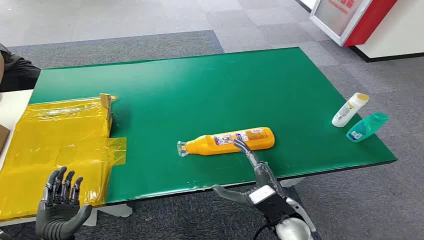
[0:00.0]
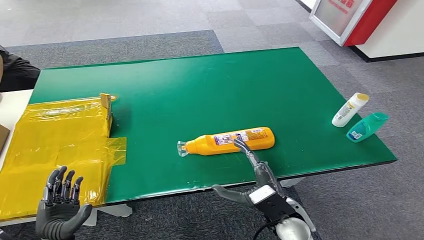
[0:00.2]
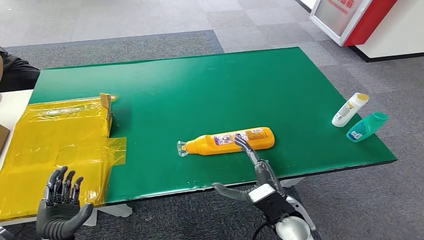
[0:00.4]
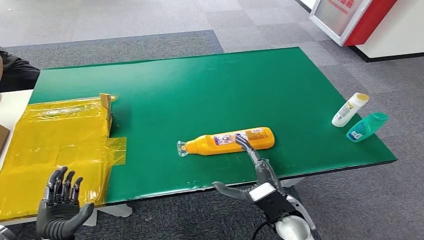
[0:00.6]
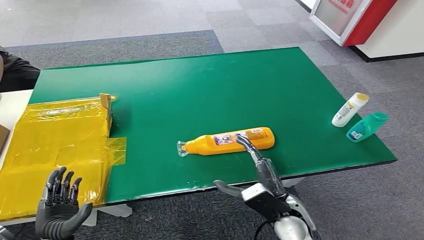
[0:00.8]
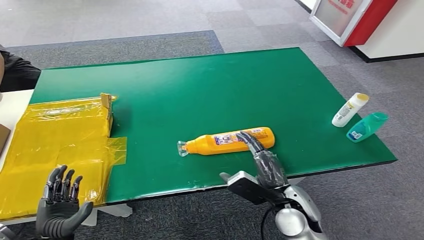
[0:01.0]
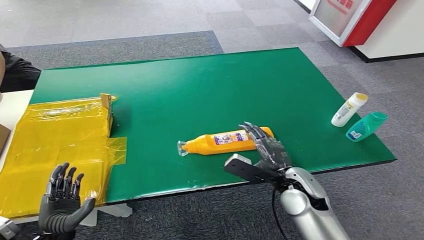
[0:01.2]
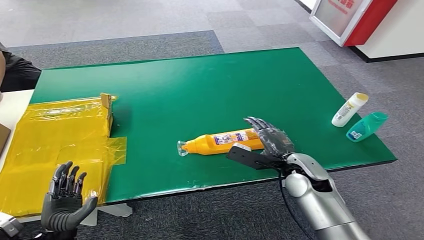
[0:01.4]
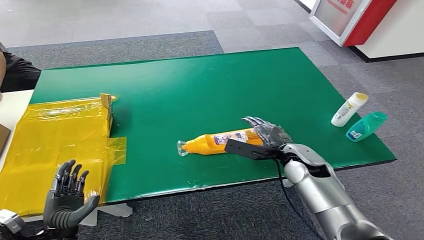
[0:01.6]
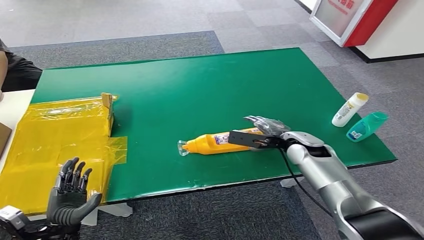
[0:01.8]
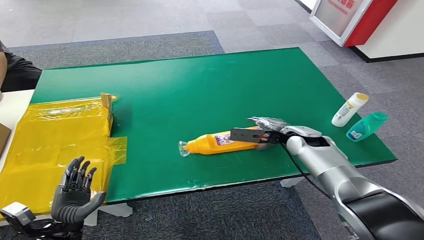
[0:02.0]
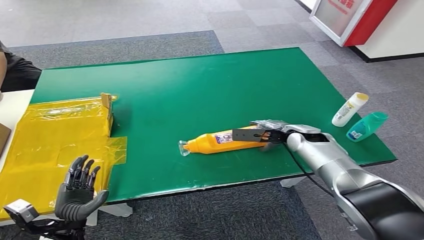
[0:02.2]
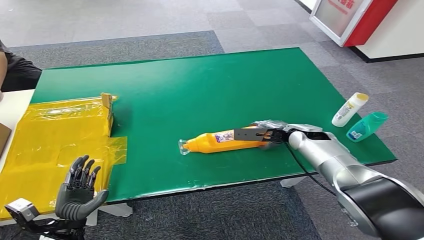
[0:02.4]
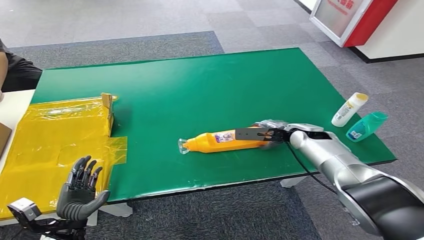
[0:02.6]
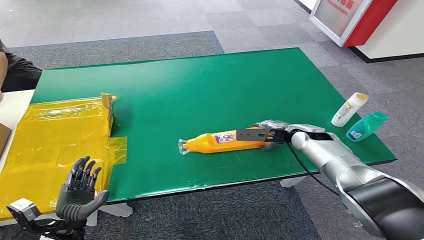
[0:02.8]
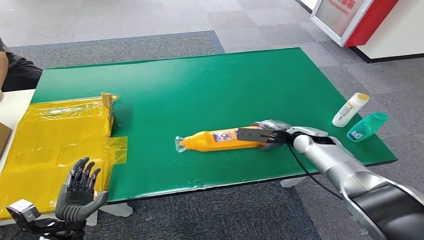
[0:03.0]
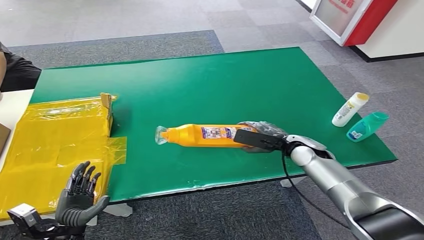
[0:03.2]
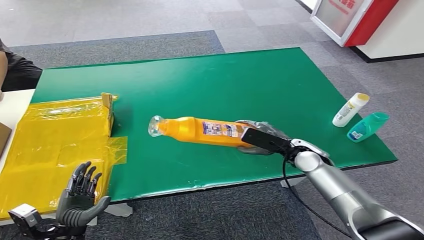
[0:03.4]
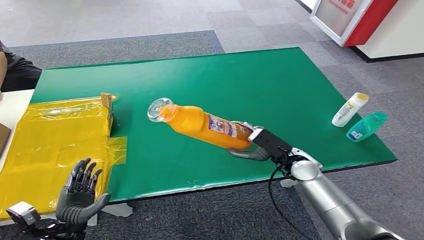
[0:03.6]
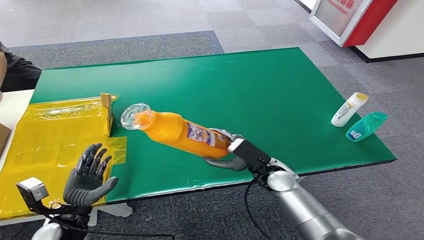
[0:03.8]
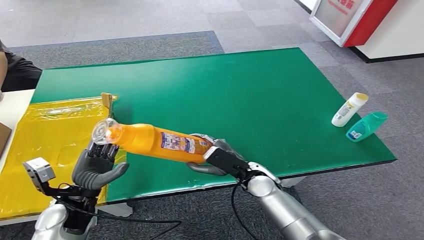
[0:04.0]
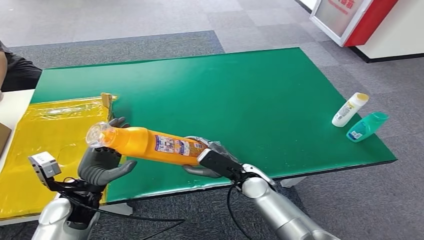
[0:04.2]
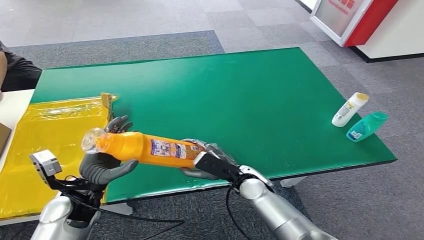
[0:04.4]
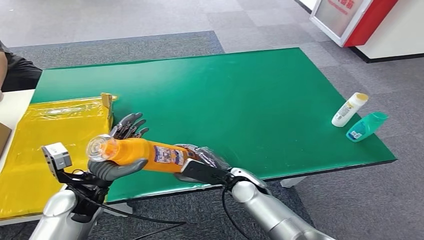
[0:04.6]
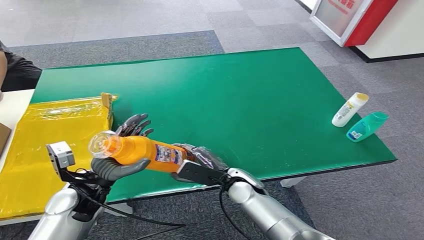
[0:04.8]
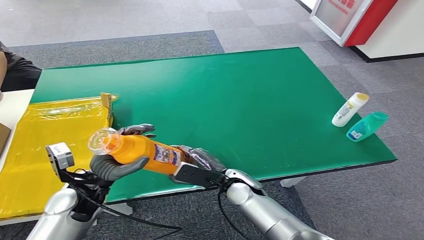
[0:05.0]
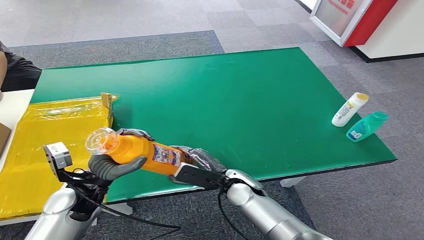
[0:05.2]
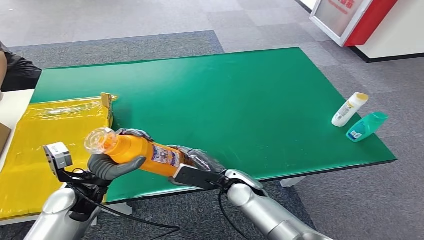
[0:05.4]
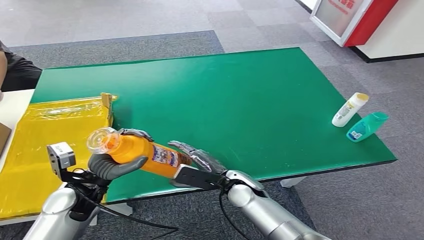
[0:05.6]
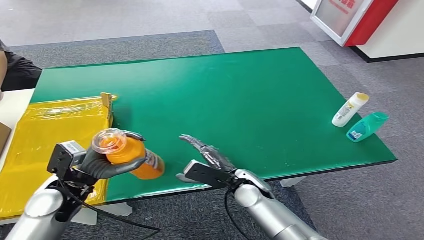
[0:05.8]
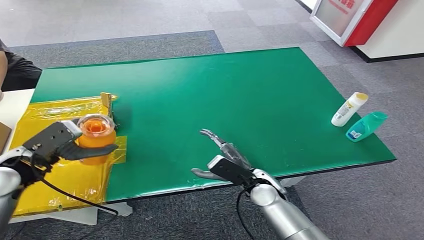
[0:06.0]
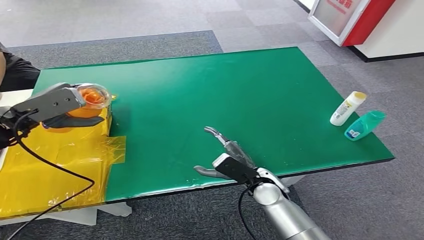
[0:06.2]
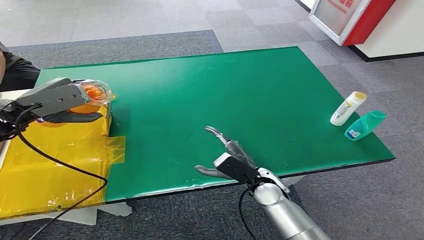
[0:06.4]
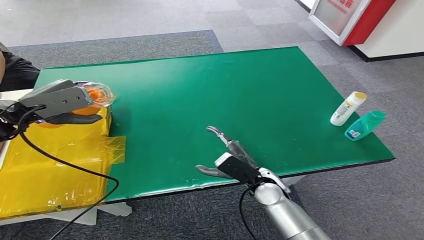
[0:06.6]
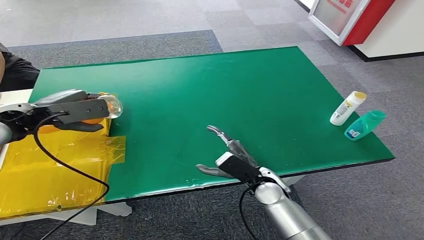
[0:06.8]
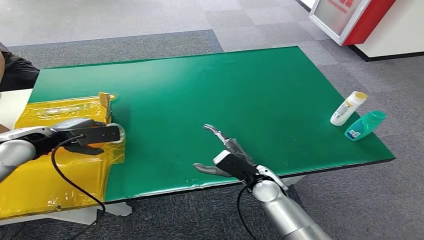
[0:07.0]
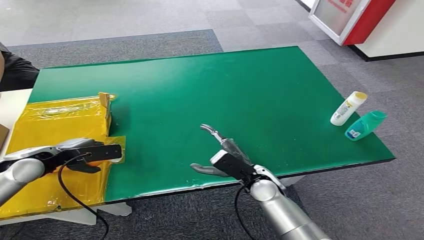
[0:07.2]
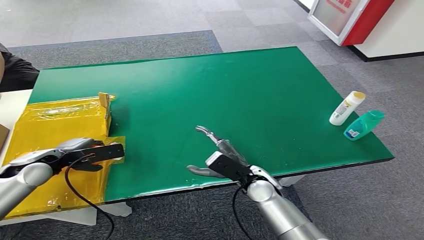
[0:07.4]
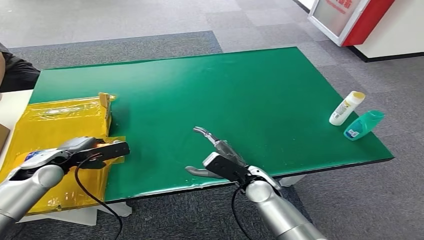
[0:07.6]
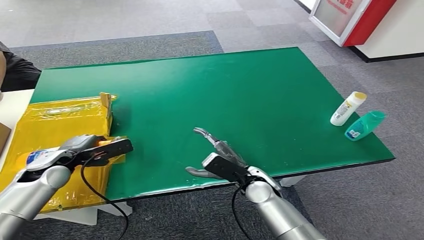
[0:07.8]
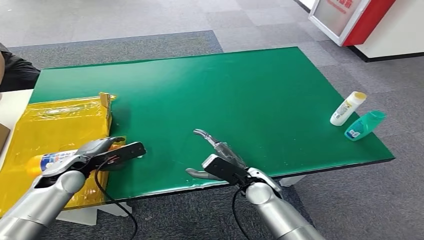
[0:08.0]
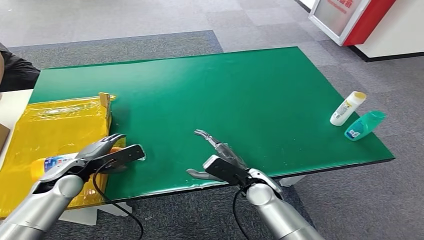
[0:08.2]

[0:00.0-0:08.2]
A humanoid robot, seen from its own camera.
Step, 0:00.0 to 0:04.0: Pick up the bottle from the table.
Step, 0:04.4 to 0:08.2: Turn the bottle to the front side.
0:03.2 to 0:05.0: The right hand is displaced to the left and backward by roughly 20 cm. Meanwhile the left hand shifts some 20 cm upward, forward and to the right.
0:06.6 to 0:08.2: The left hand shifts some 20 cm downward.
